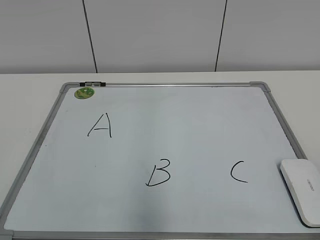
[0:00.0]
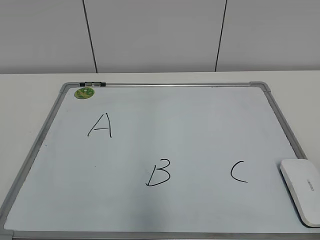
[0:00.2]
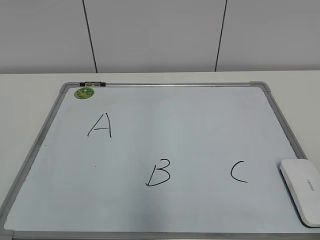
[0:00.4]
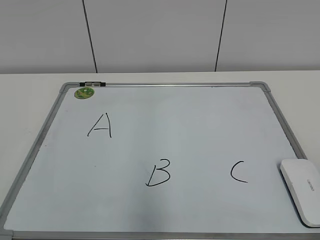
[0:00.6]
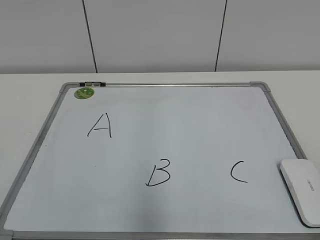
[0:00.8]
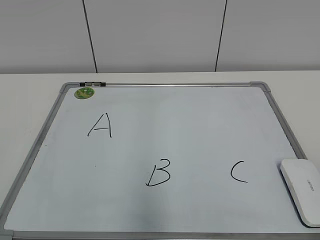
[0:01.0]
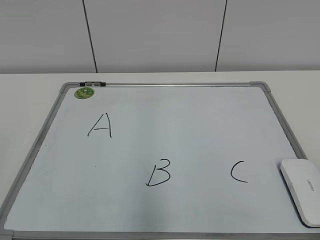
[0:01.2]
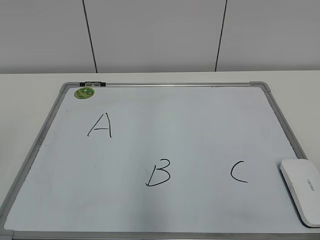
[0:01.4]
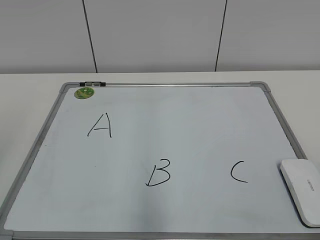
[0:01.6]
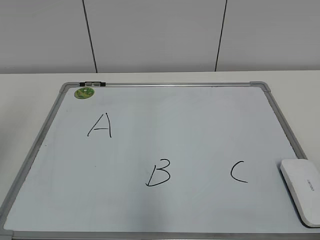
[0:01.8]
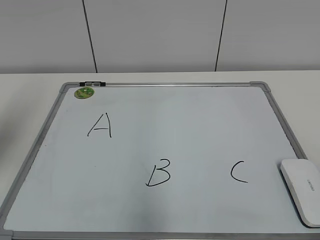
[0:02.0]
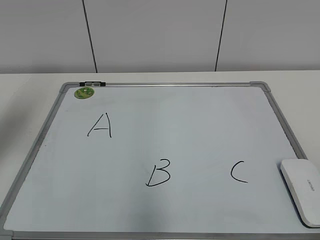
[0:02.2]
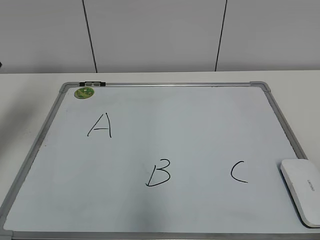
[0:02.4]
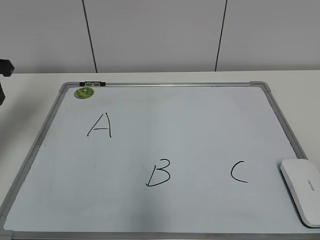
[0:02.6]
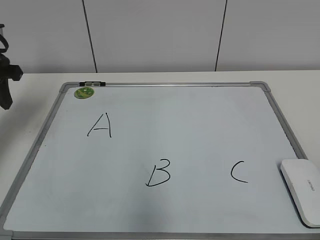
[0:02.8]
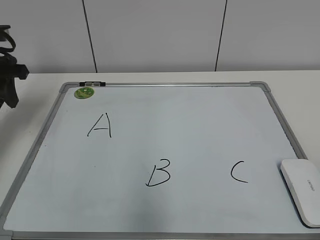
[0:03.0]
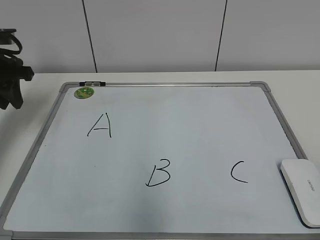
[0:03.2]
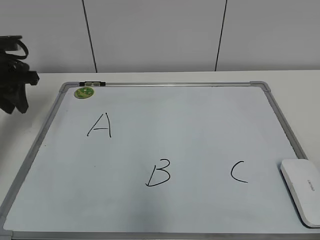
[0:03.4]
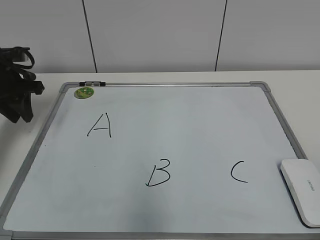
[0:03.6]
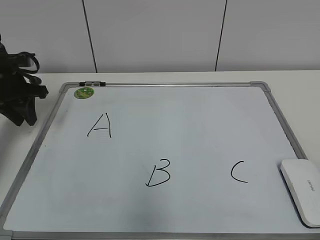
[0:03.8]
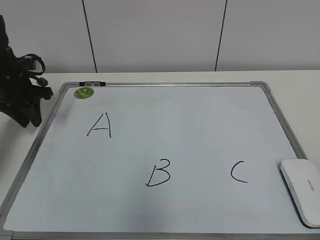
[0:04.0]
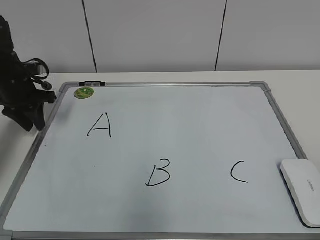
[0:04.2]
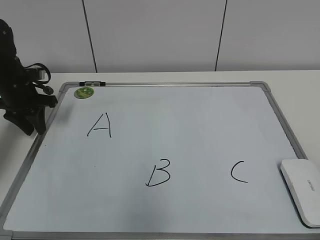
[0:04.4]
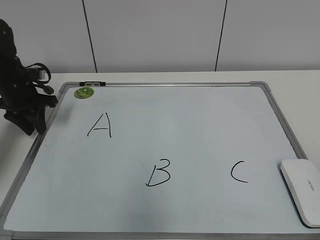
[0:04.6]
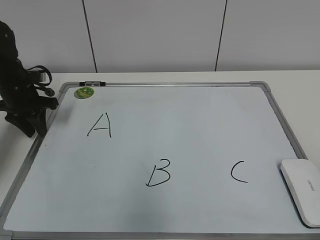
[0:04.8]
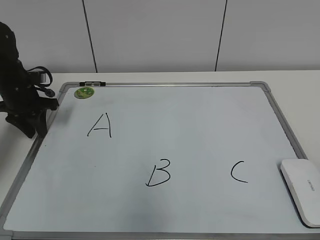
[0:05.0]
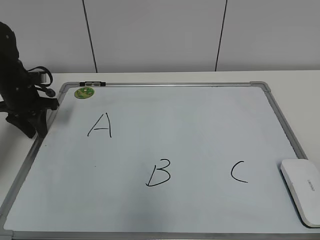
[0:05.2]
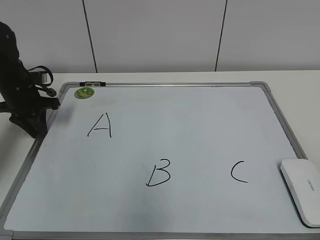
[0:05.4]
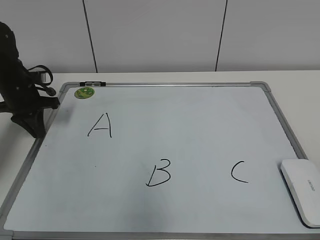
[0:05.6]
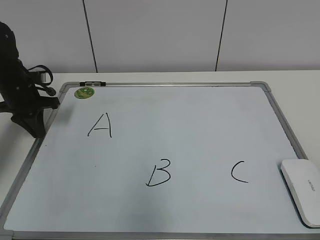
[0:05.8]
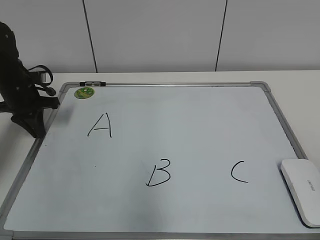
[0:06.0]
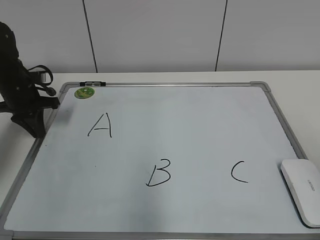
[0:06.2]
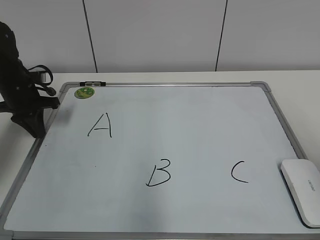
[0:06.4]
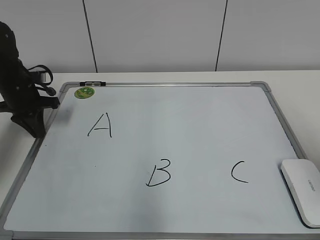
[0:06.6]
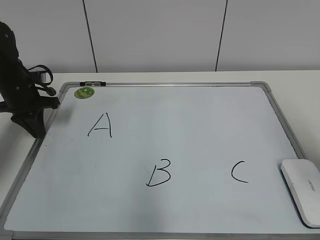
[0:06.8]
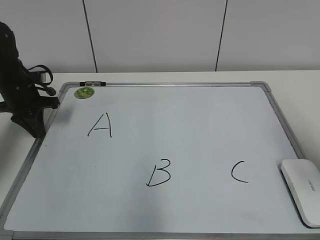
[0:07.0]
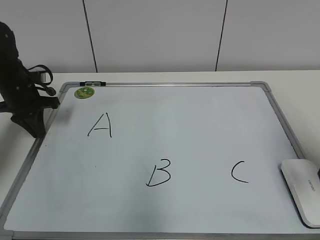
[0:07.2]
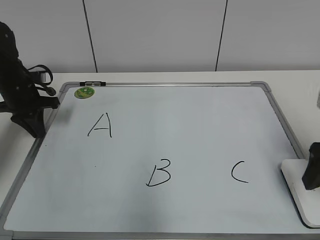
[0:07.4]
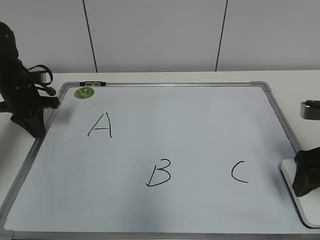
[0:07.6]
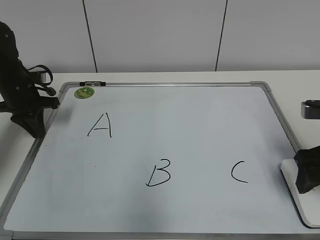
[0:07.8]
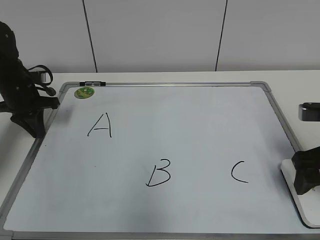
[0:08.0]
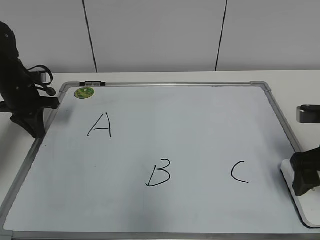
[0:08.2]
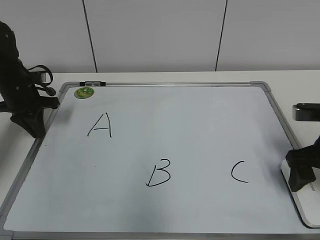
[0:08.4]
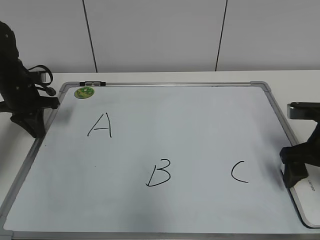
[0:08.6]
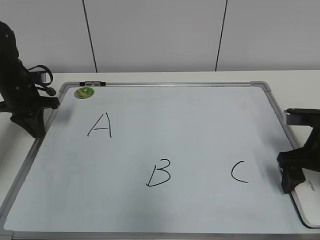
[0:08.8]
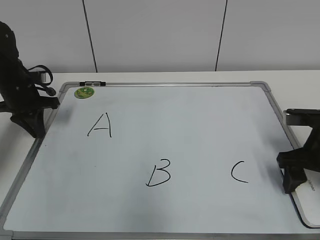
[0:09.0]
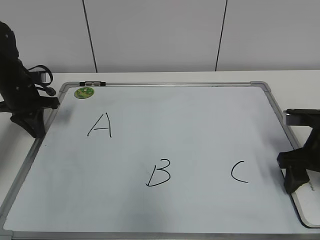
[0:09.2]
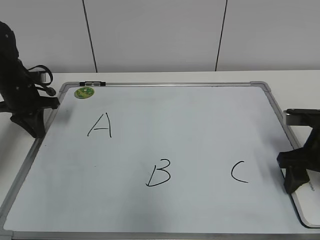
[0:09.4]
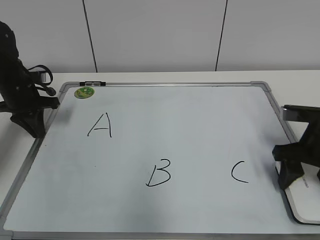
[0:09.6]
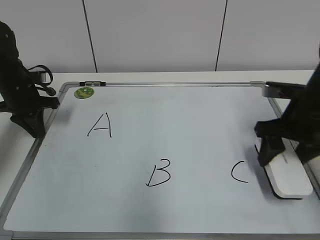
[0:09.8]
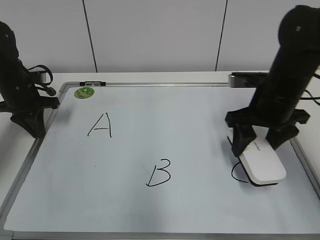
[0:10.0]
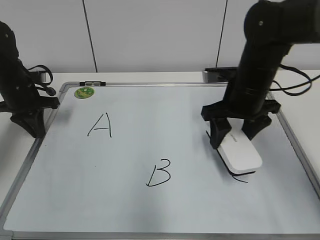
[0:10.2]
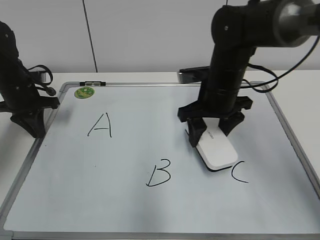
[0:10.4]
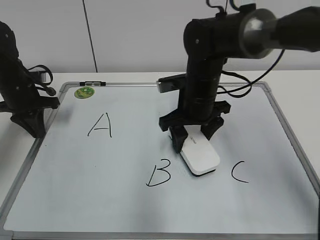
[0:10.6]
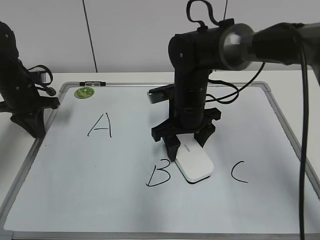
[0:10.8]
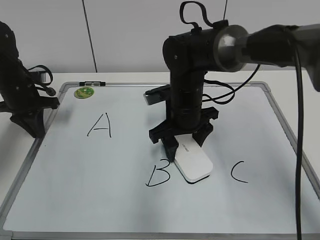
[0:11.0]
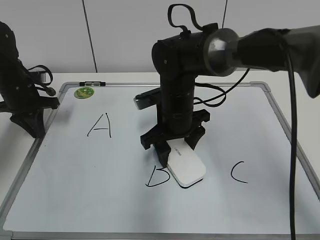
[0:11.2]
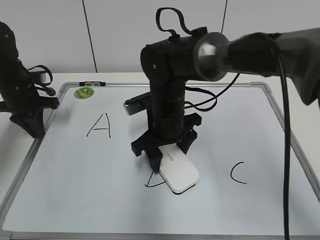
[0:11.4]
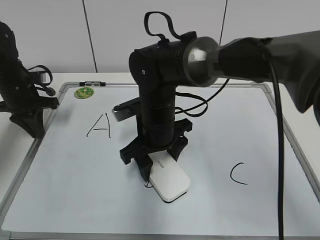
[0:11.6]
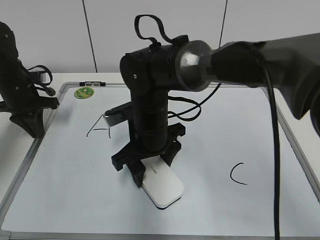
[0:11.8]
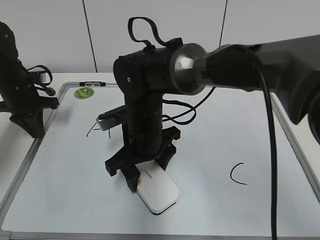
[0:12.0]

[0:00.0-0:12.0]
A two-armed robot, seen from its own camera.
Task of the whole recording: pick up the eraser on the blackboard and erase the letter "B".
Step, 0:00.0 to 0:05.6: Hold the drawing board steady with your left hand.
Step, 0:05.8 to 0:09.4: Grab the eraser with your right hand.
0:01.6 to 0:03.0: The left gripper travels forward by roughly 25 cm.
0:03.0 to 0:04.4: The left gripper is displaced downward and forward by approximately 10 cm.
0:04.4 to 0:06.0: The left gripper closes.
0:06.0 to 0:07.6: The right gripper travels forward and downward by approximately 25 cm, and opens up.
0:07.6 to 0:09.0: The right gripper moves some 5 cm, and closes up.
0:09.0 to 0:10.4: The right gripper shifts roughly 20 cm to the left and forward, and closes up.
0:10.4 to 0:12.0: The right gripper moves to the left and backward, some 15 cm.

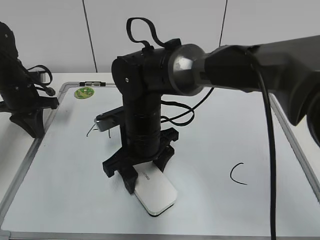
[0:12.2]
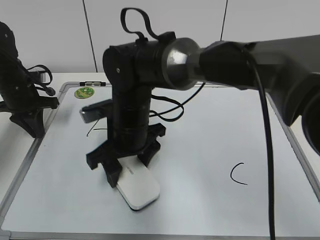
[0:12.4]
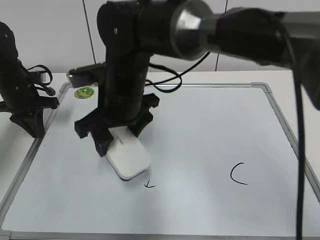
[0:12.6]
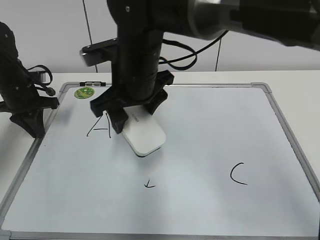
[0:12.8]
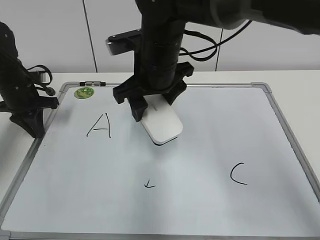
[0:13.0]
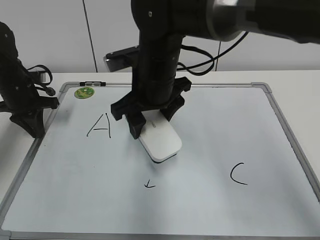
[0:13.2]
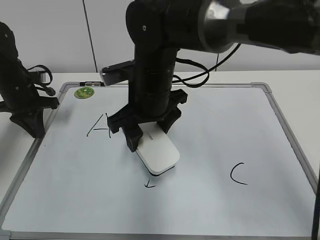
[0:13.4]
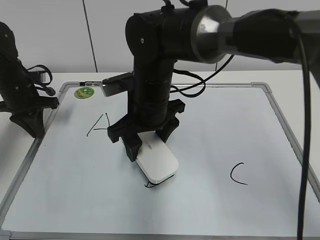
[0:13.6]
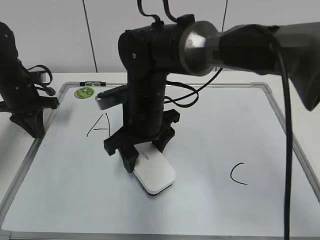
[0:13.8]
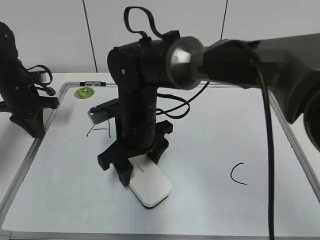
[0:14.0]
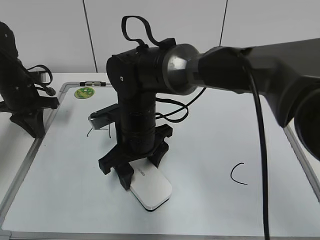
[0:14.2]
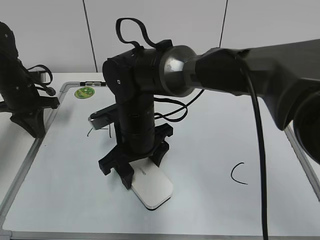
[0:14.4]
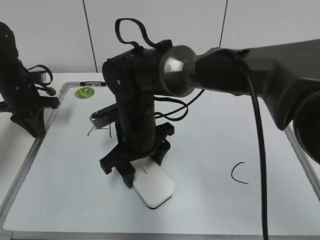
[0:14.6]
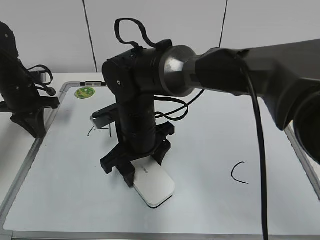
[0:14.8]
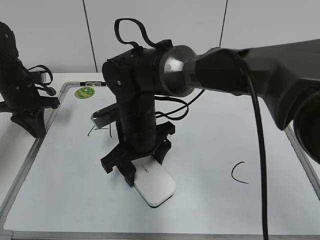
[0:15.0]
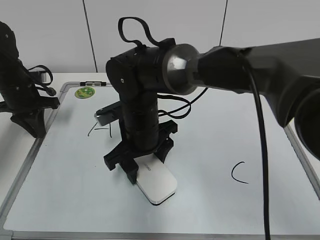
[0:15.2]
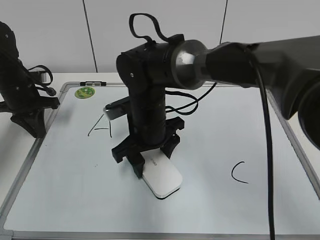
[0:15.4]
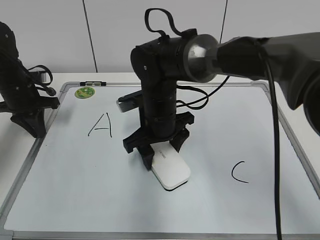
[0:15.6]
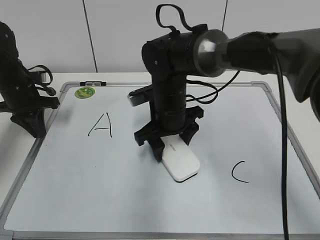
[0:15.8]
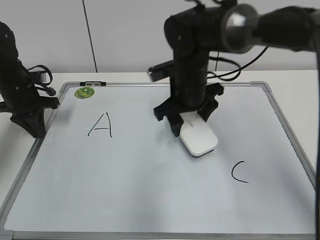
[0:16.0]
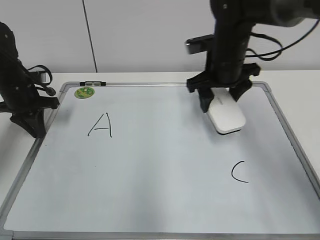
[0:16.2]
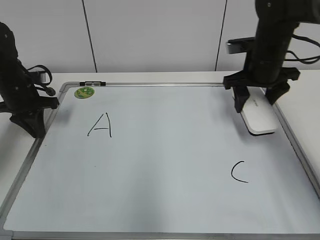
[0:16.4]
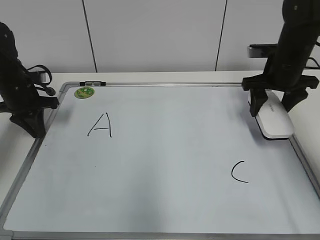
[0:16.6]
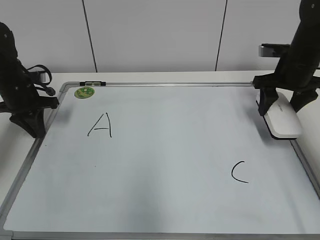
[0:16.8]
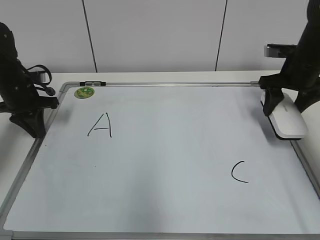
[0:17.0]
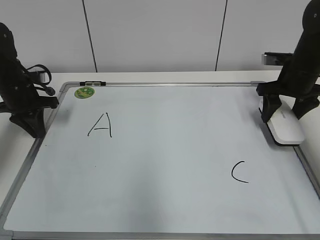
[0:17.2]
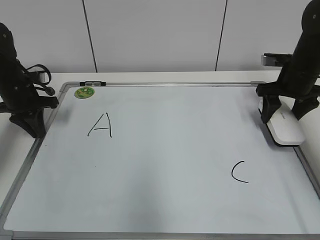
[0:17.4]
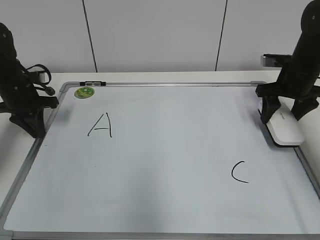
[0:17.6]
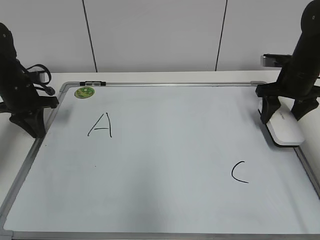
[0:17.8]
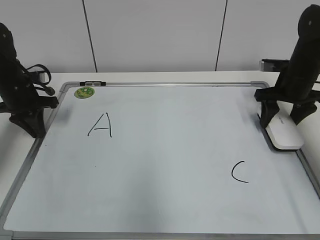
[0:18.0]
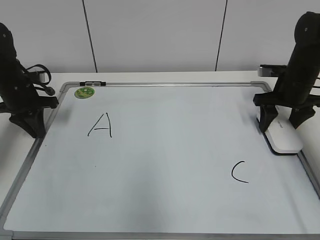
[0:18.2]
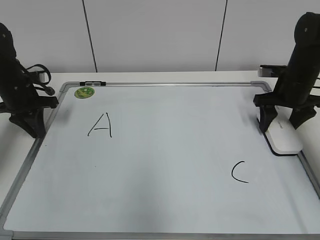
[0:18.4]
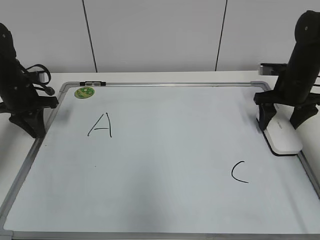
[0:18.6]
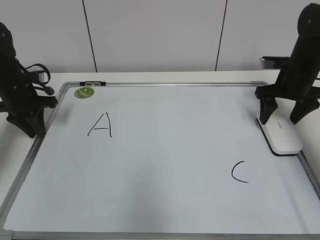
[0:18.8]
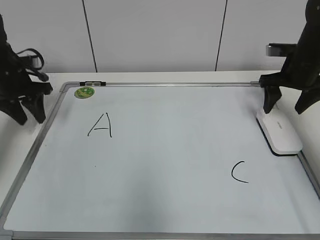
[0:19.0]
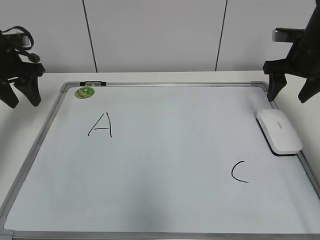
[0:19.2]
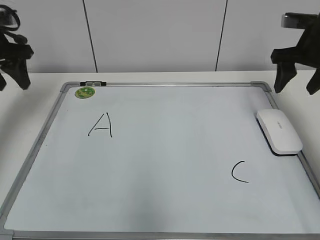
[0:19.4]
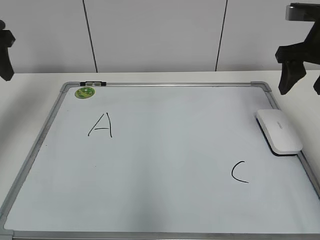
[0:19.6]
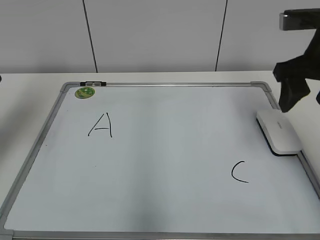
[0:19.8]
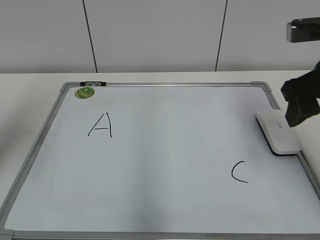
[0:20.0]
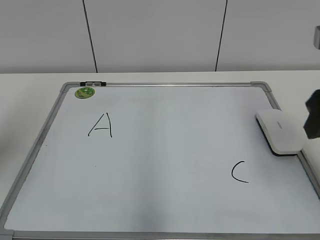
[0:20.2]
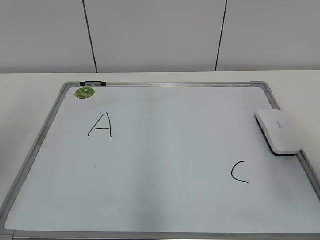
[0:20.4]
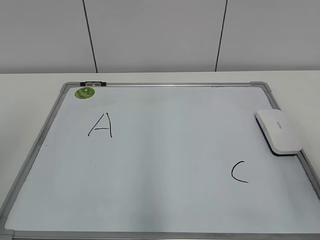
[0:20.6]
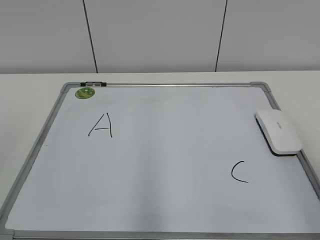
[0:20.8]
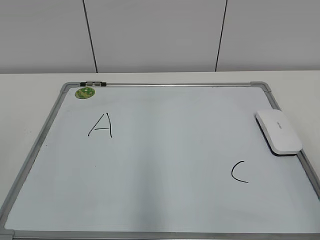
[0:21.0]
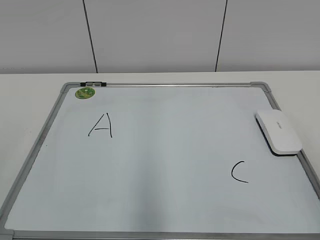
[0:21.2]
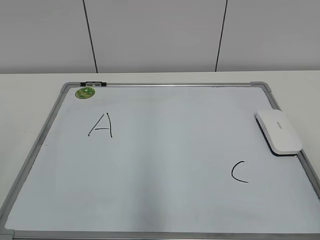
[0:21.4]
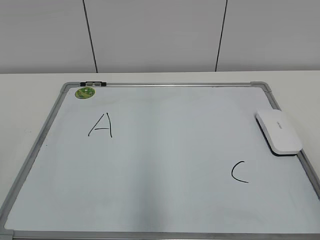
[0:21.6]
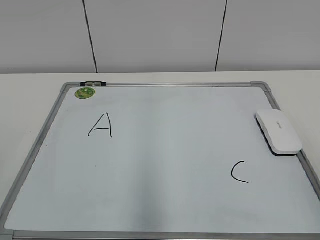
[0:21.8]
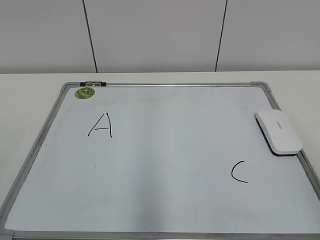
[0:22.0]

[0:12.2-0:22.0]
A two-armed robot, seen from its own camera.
Task of the whole recording: pick up the eraser on the blackboard and erase the letter "B".
Step, 0:12.2 to 0:15.6: Erase the letter B with your right hand.
0:13.6 to 0:15.0: The right gripper changes place by roughly 5 cm.
0:15.0 to 0:16.4: The right gripper goes about 25 cm to the right and forward.
0:16.4 to 0:17.8: The right gripper is displaced to the right by roughly 10 cm.
0:17.8 to 0:19.2: The left gripper shifts roughly 10 cm upward, and opens; the right gripper heads upward, covering about 5 cm, and opens its fingers.
0:19.2 to 0:20.6: The two grippers go some 30 cm backward.
